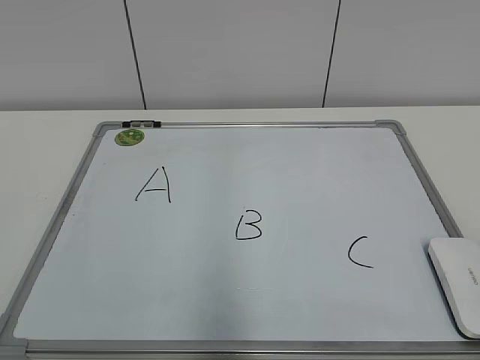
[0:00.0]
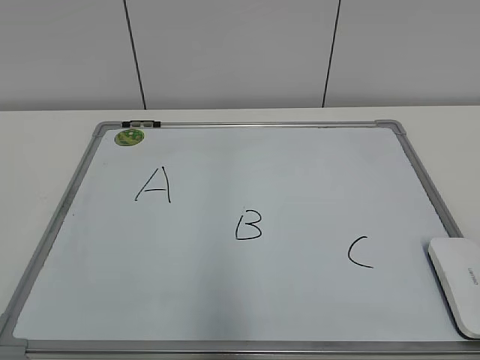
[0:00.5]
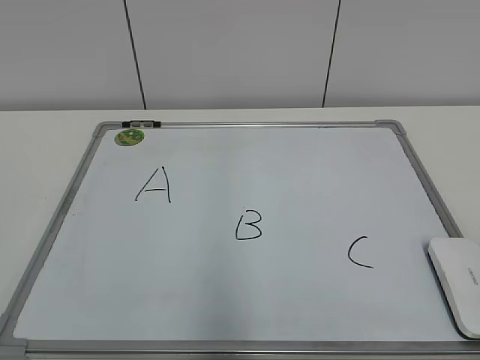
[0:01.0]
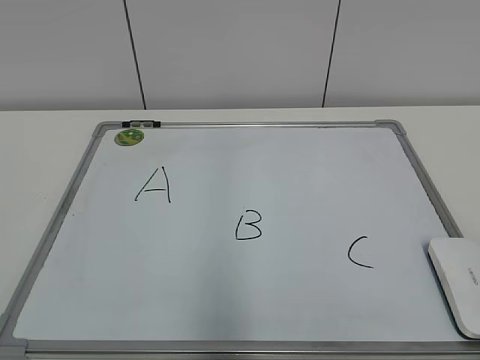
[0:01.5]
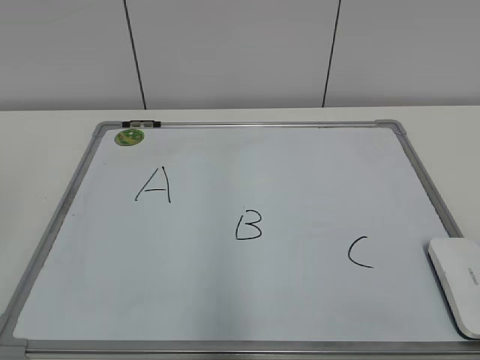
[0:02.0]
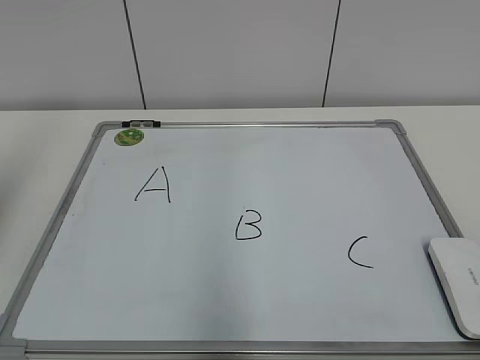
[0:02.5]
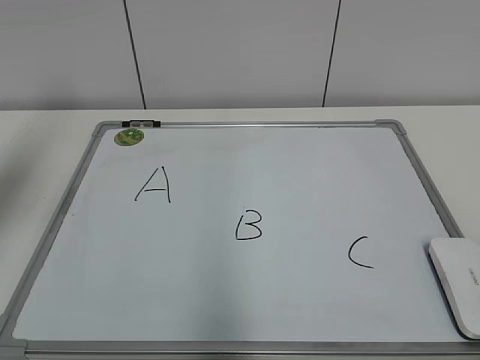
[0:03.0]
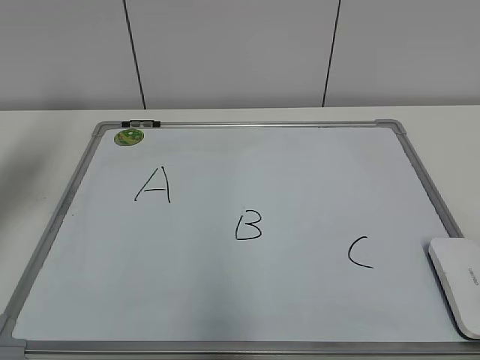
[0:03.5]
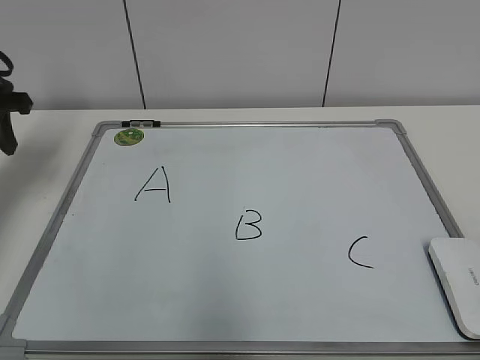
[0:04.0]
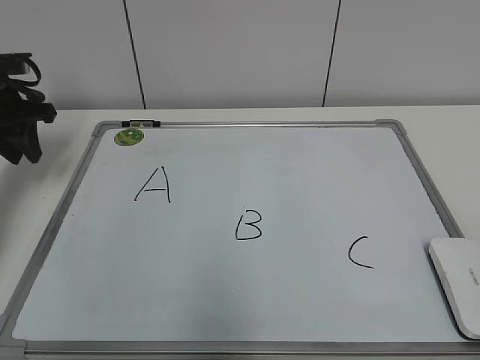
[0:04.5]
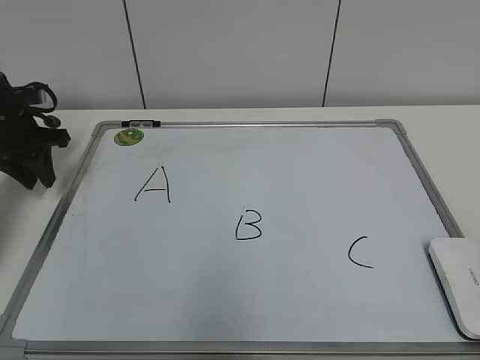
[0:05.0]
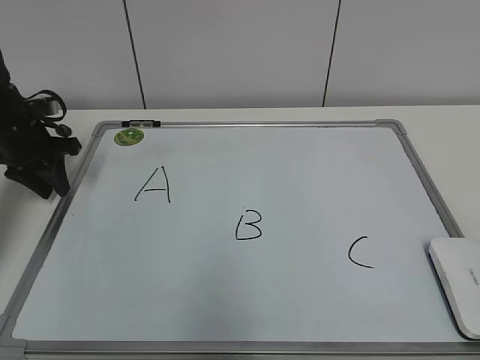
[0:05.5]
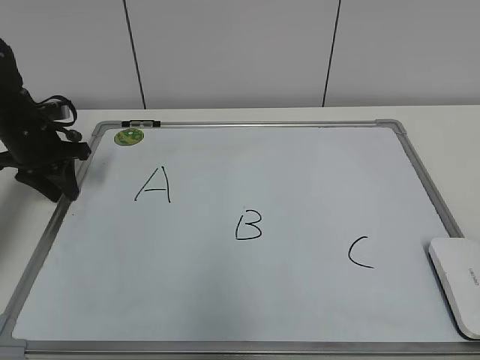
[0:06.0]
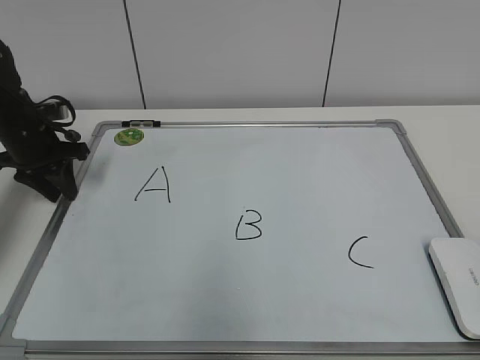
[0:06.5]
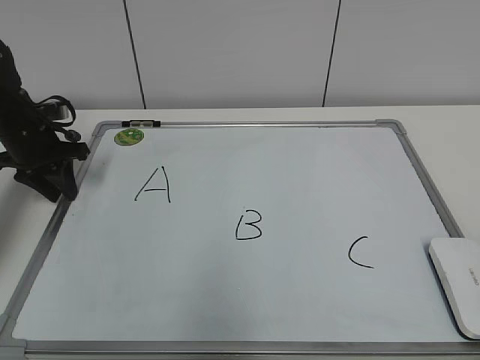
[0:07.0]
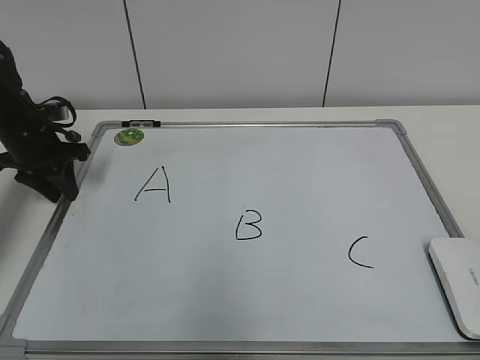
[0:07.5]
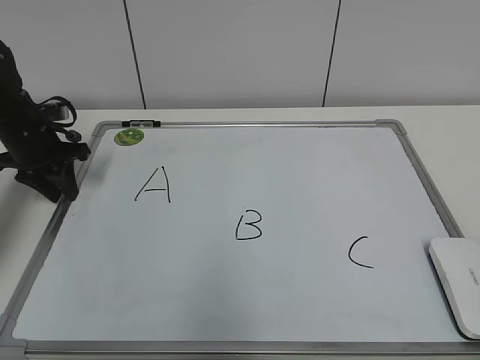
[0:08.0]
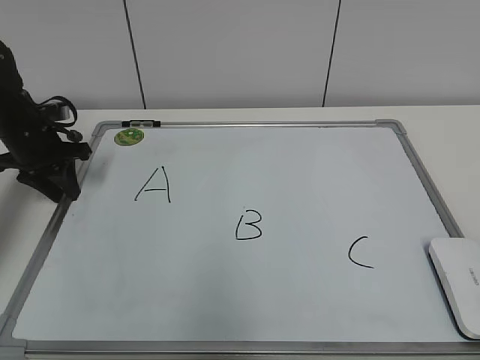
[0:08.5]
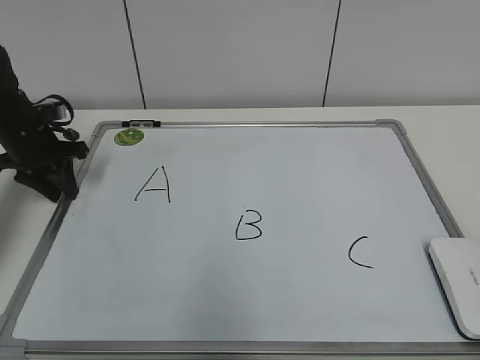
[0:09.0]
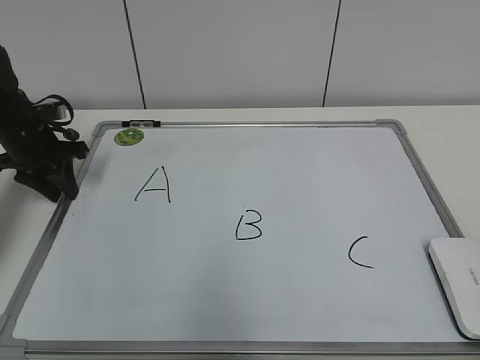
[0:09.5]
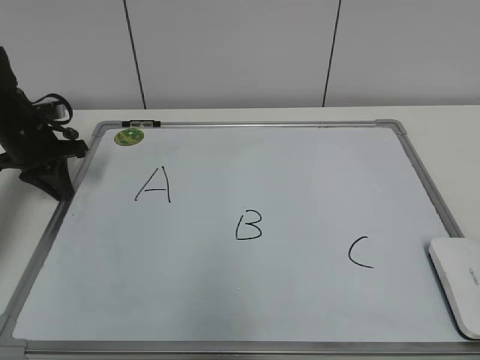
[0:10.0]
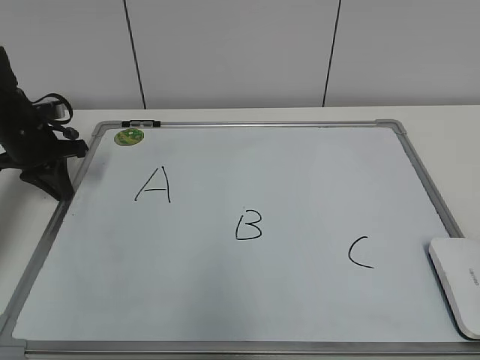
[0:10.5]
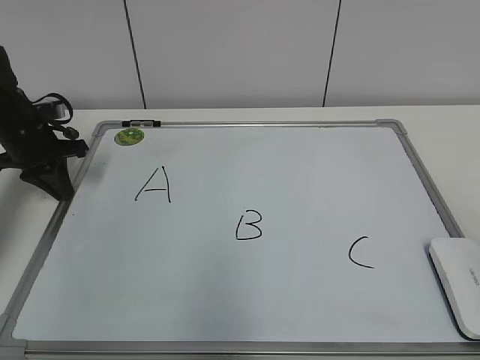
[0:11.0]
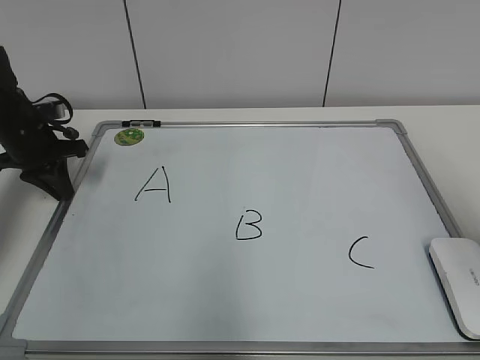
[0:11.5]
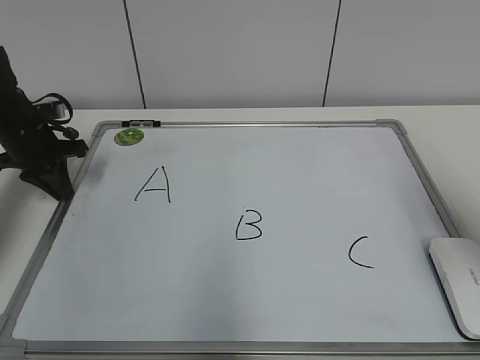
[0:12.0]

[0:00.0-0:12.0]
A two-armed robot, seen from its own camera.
Task of the whole recording: pick up the eraser on the blackboard and erase the letter "B".
Step, 0:00.0 to 0:09.5: Hold the drawing board steady with your left hand.
0:02.0 to 0:04.0: The left gripper shifts some 35 cm forward.
0:04.0 to 0:06.0: The left gripper is displaced downward and forward by about 10 cm.
0:06.0 to 0:10.0: Neither gripper changes place.
0:10.0 to 0:12.0: The right gripper shifts roughly 25 cm forward.

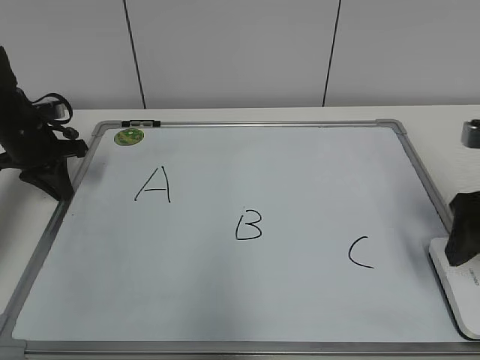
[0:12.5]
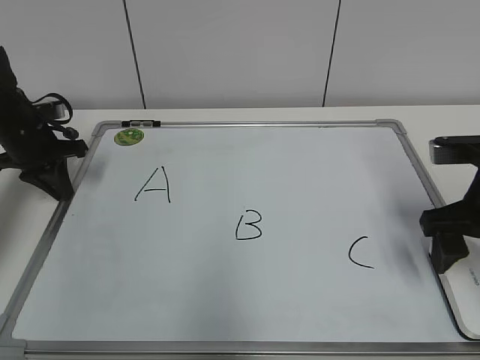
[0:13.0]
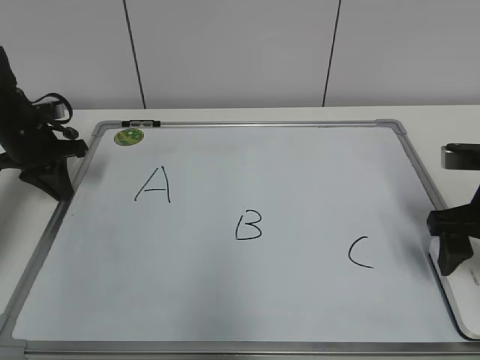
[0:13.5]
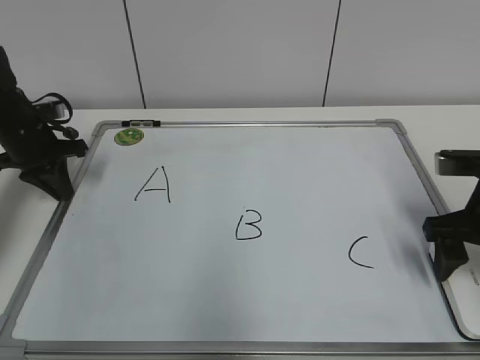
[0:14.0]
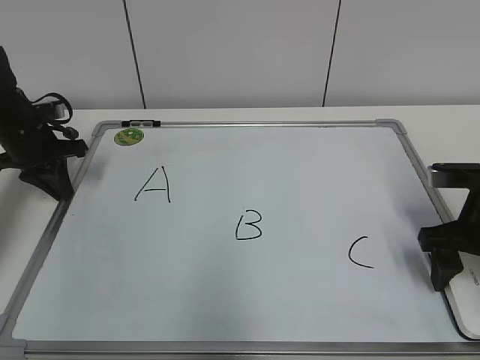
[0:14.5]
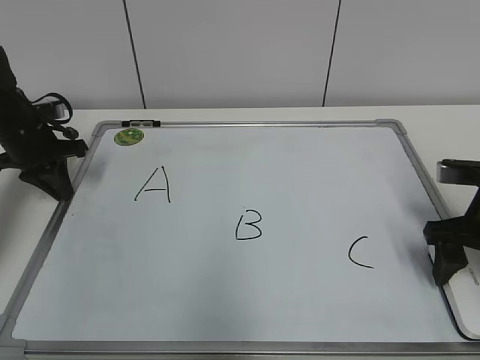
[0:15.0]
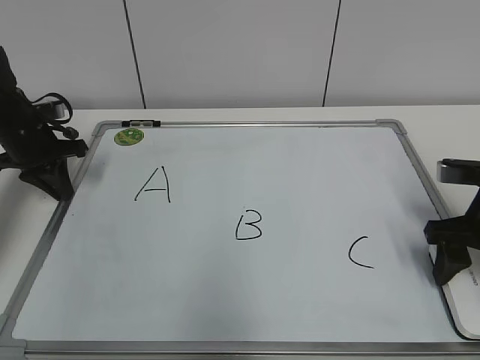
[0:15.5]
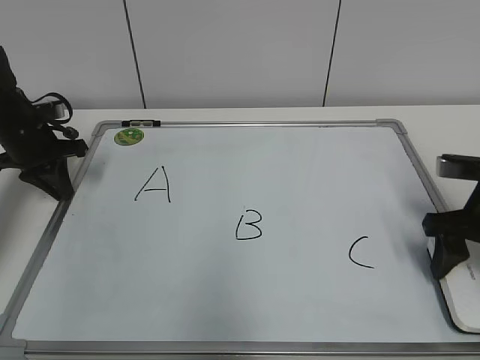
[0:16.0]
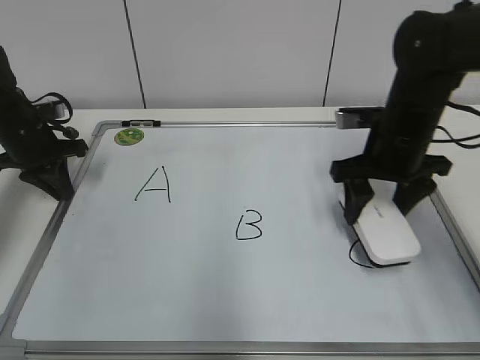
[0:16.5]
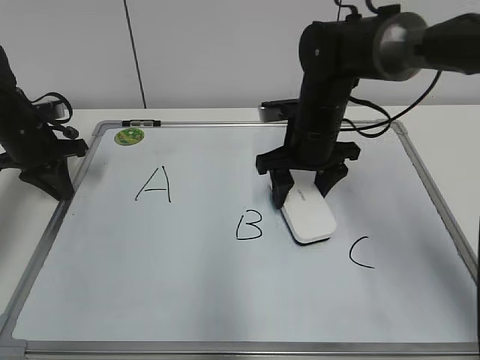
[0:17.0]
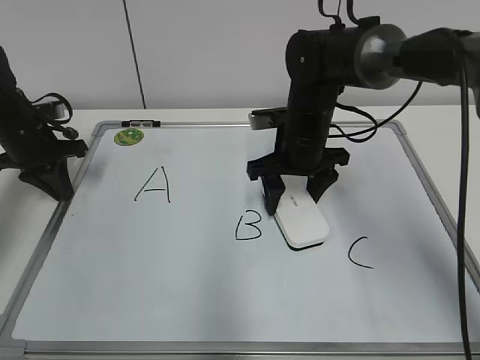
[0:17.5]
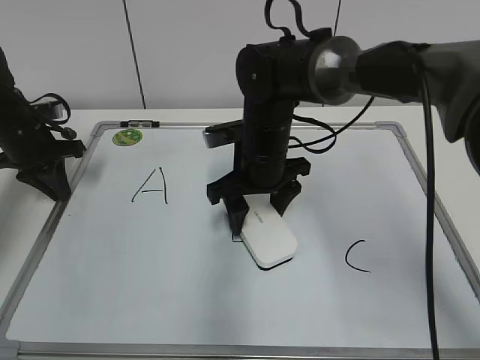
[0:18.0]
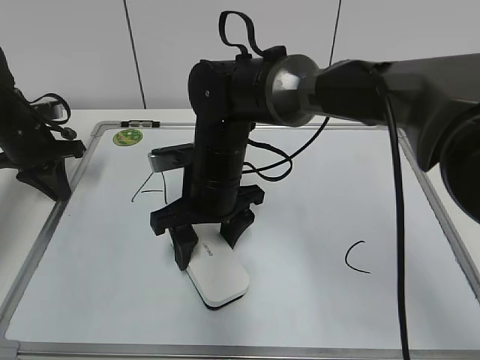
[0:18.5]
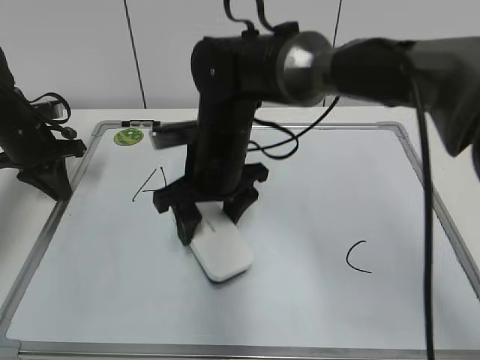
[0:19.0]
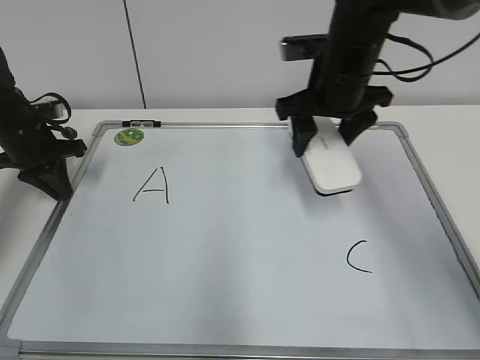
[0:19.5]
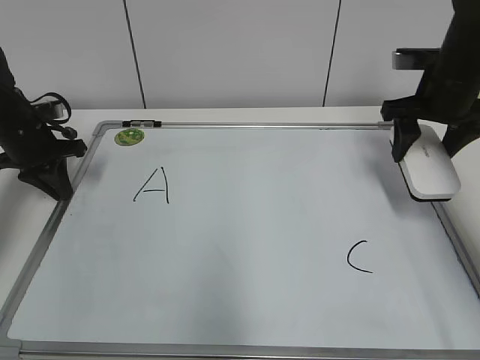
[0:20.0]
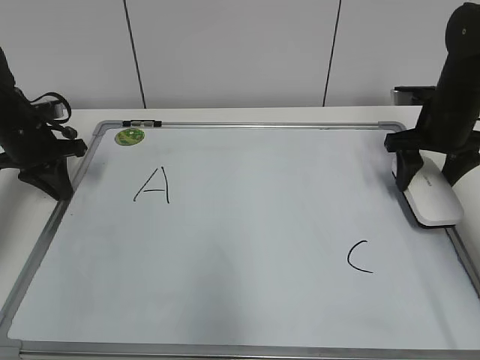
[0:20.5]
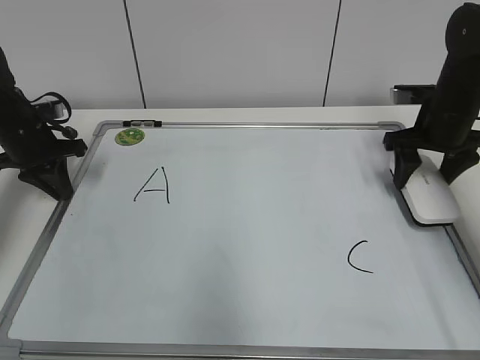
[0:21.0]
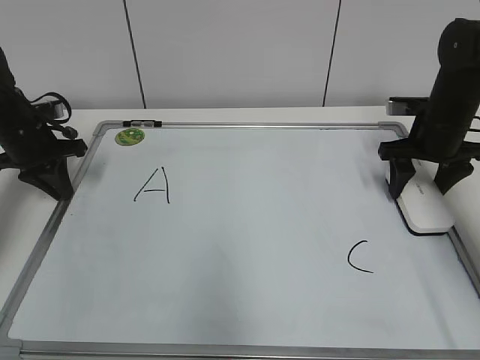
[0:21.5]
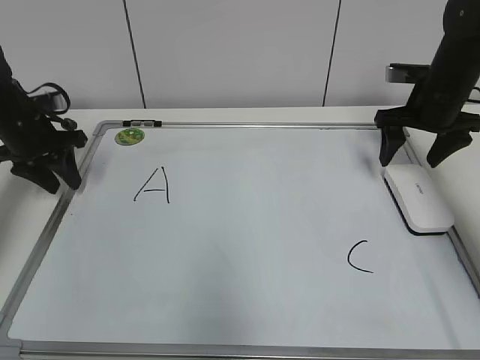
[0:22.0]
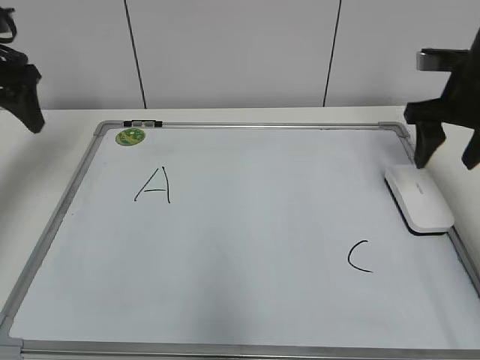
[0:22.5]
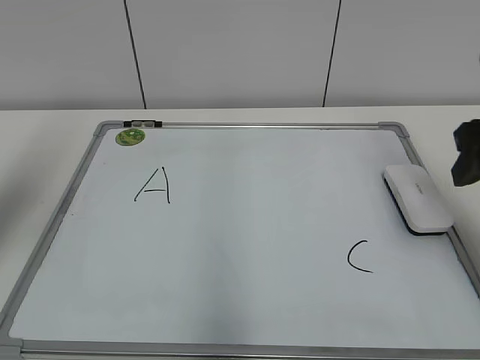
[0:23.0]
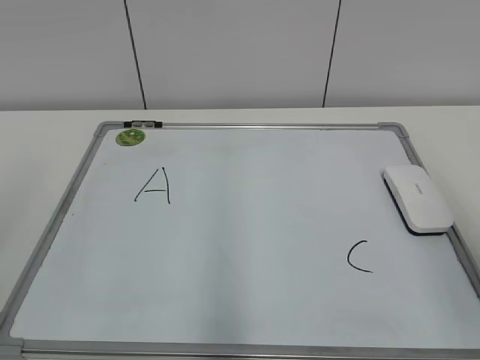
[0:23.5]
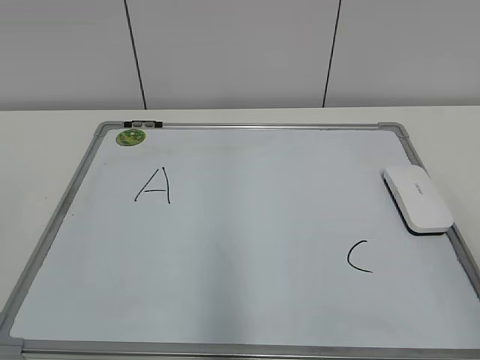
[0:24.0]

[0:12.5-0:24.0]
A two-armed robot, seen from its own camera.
Task of the whole recording: pick up the eraser on the blackboard and erase the letter "B".
Step, 0:12.5 to 0:15.5: Grab the eraser with your right hand.
Step, 0:16.0 to 0:18.5: Erase the letter B with your right hand.
0:12.5 to 0:14.5: The right gripper is displaced downward by roughly 5 cm.
0:14.5 to 0:16.5: The right gripper travels forward and to the left by roughly 10 cm, and closes up.
0:16.5 to 0:18.5: The right gripper travels to the left by about 20 cm.
0:18.5 to 0:20.0: The right gripper heads to the right, covering roughly 30 cm.
0:20.0 to 0:22.0: The right gripper shifts by roughly 5 cm, and opens up. Meanwhile the left gripper opens its fingers.
0:22.0 to 0:24.0: The left gripper shifts about 40 cm backward and upward, and opens its fingers, while the right gripper goes approximately 40 cm backward, and closes up.

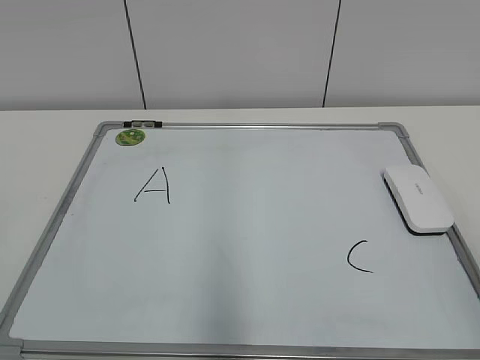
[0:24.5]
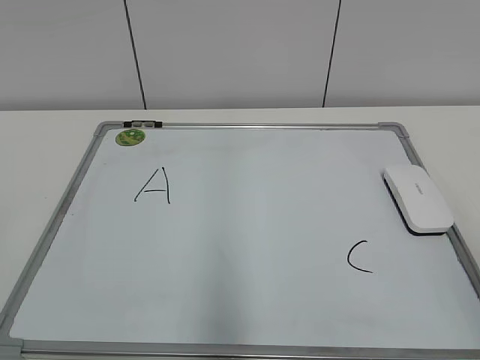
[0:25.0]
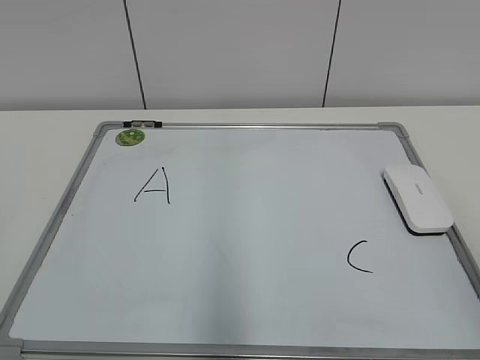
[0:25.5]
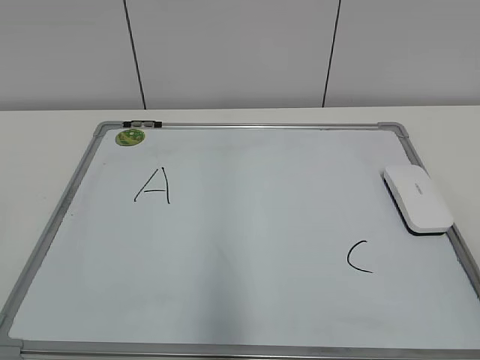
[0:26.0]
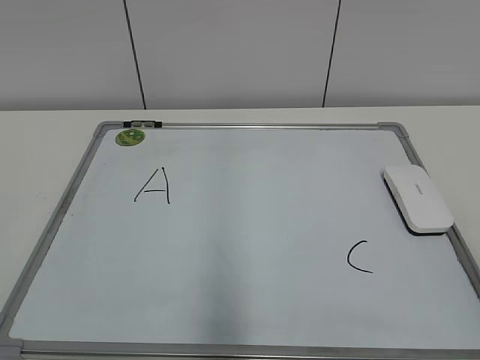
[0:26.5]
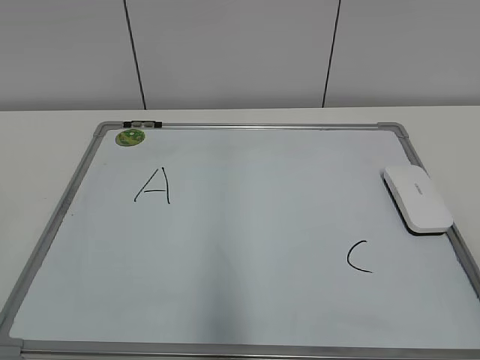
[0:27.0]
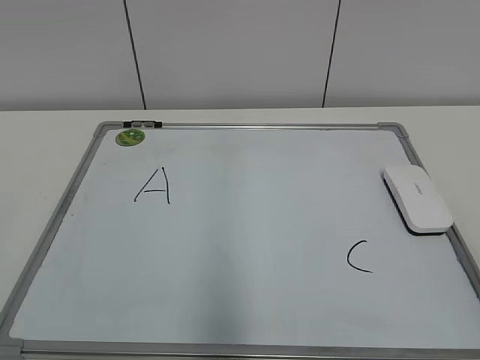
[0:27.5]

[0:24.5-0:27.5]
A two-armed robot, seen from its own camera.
Task of the whole recording: pick up the eraser on the blackboard and erase the letter "B".
0:26.0 to 0:27.5: The two grippers keep their place.
